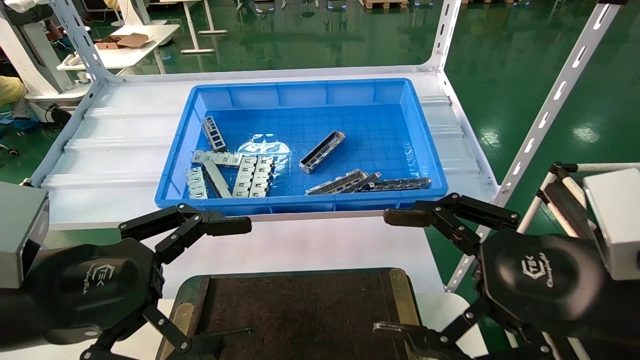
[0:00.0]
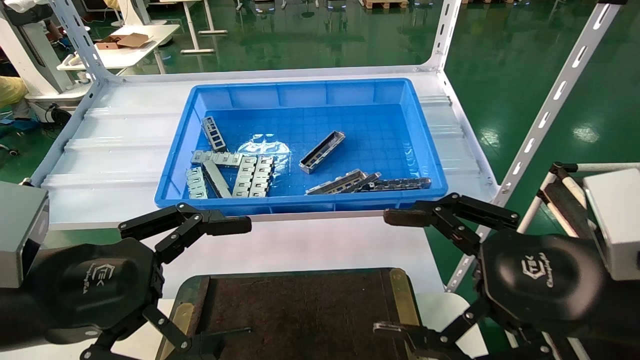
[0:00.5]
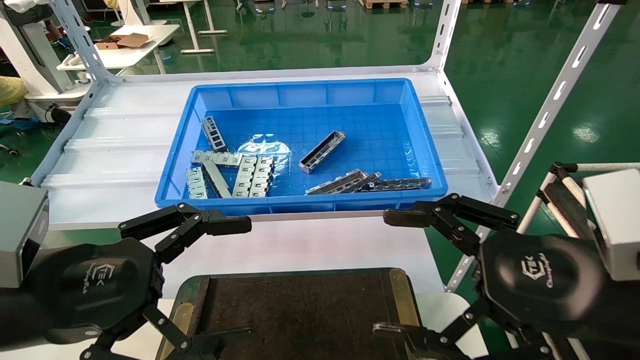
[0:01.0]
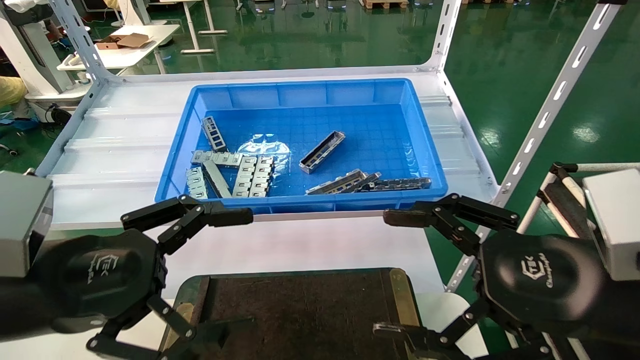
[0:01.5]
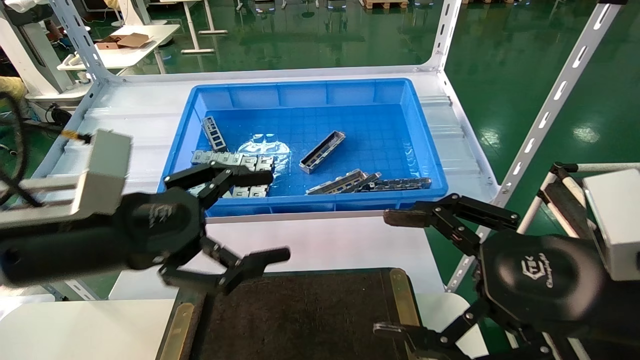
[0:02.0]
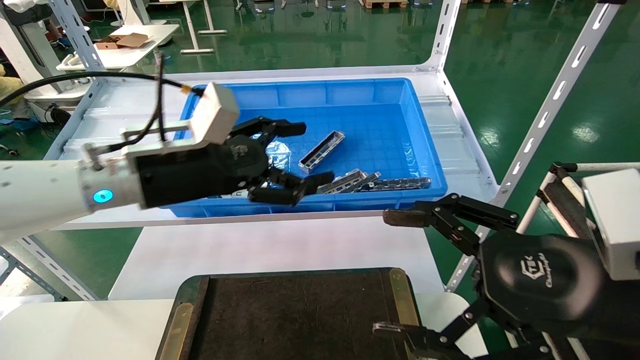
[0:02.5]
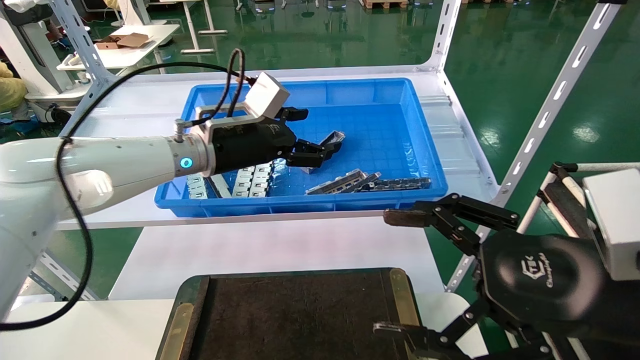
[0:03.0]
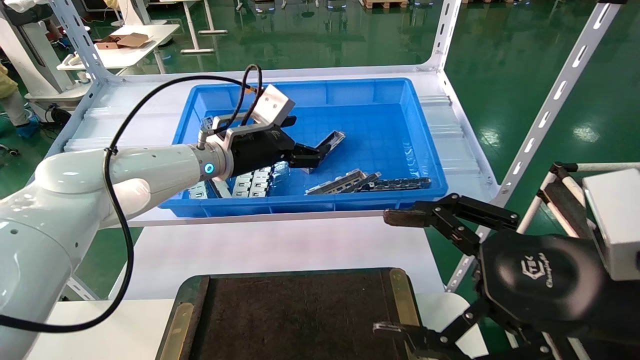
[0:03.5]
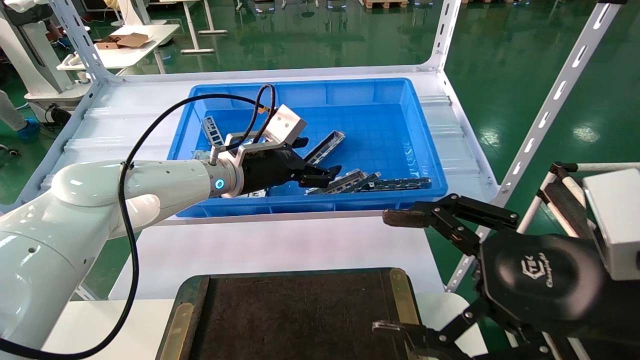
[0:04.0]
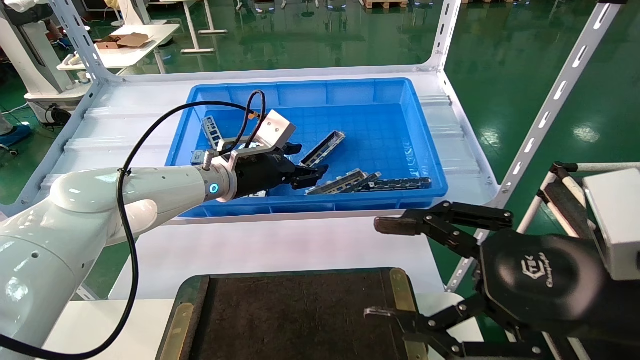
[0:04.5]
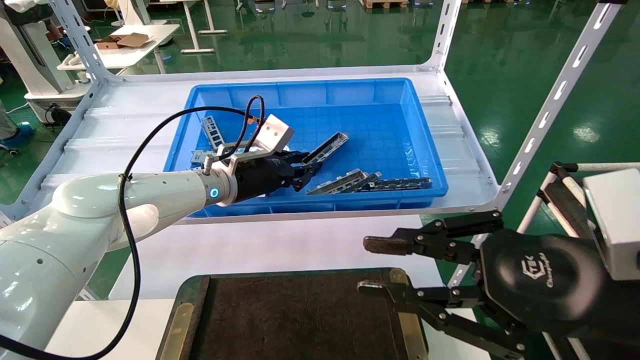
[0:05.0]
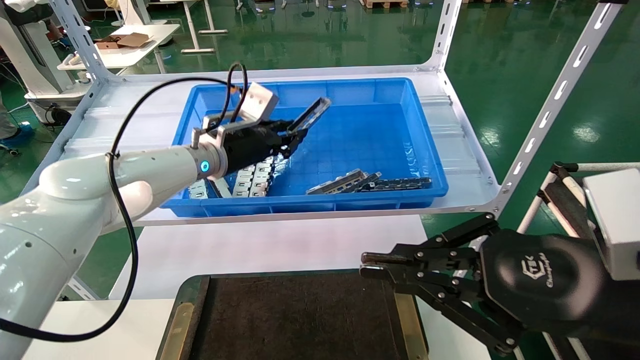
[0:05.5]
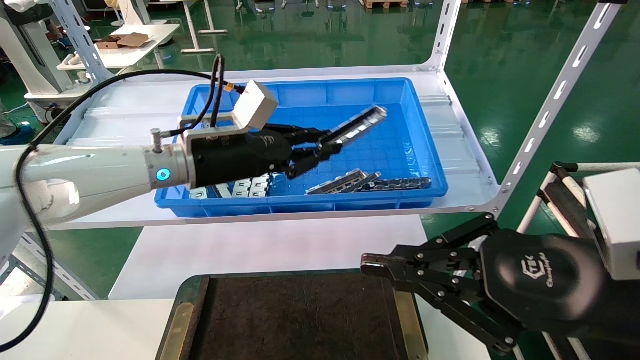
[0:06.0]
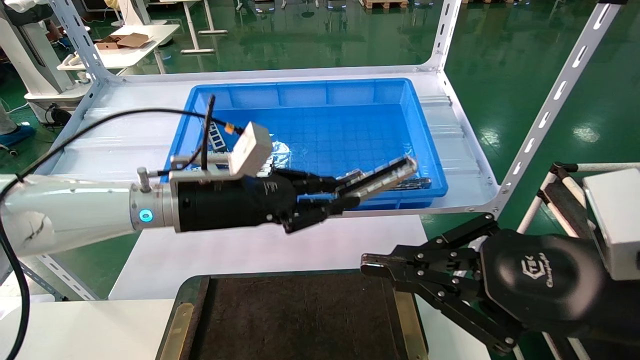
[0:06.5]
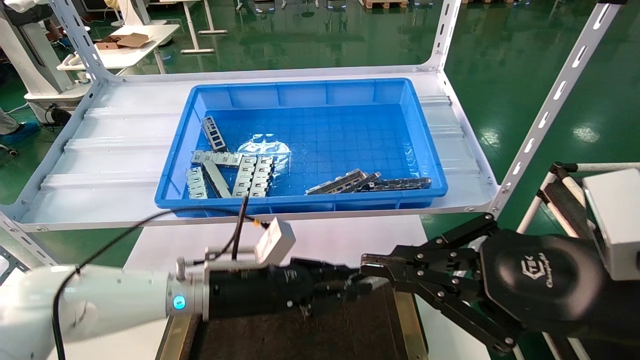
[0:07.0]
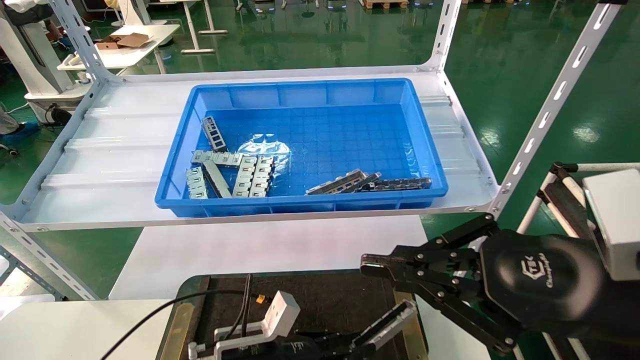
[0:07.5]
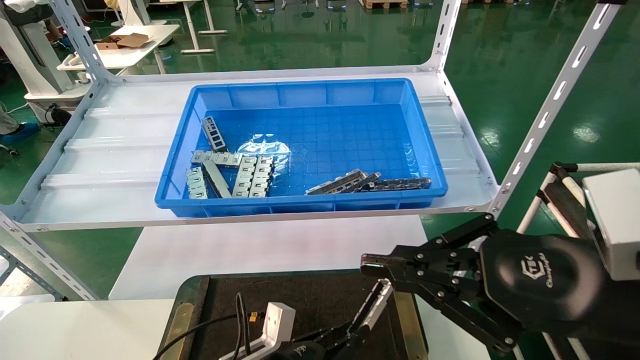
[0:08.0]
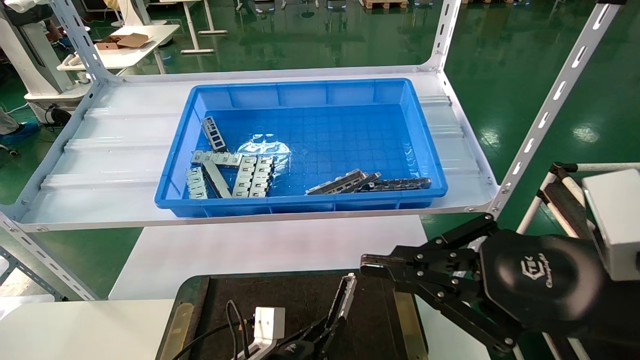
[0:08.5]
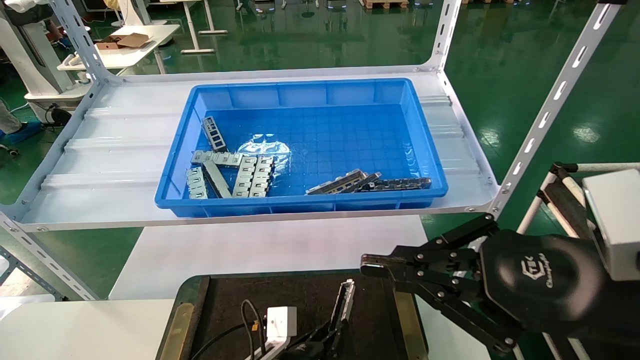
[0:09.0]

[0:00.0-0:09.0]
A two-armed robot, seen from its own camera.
Task of the whole recording: Grasp the part with one hand and place it on the black container.
Step, 0:01.5 to 0:05.5: Pick up the front USB bracket from the feeding area.
0:00.0 to 0:02.0: The left gripper moves forward, approximately 5 cm.
0:02.0 to 0:04.5: The left gripper goes about 25 cm forward and to the right.
0:04.5 to 0:07.0: The left gripper goes about 15 cm downward and backward, and closes its fingers, while the right gripper closes its fingers.
0:07.0 to 0:09.0: The left gripper moves downward and to the right, some 20 cm.

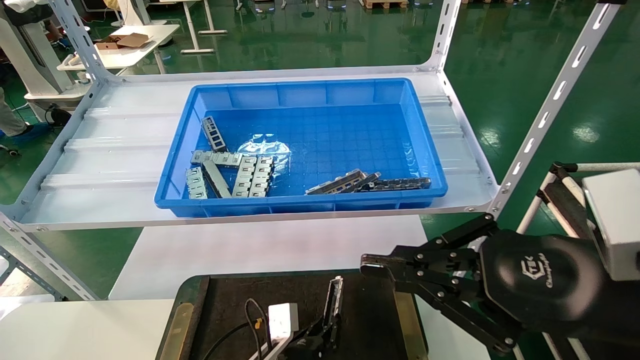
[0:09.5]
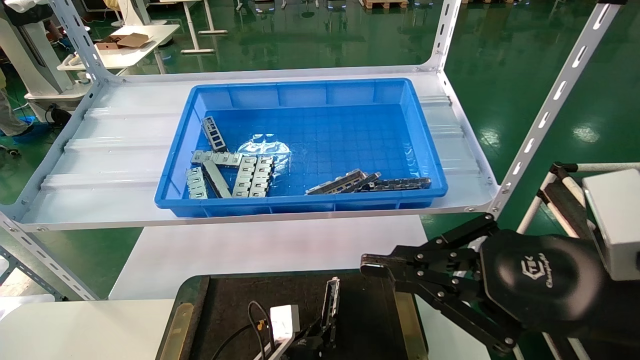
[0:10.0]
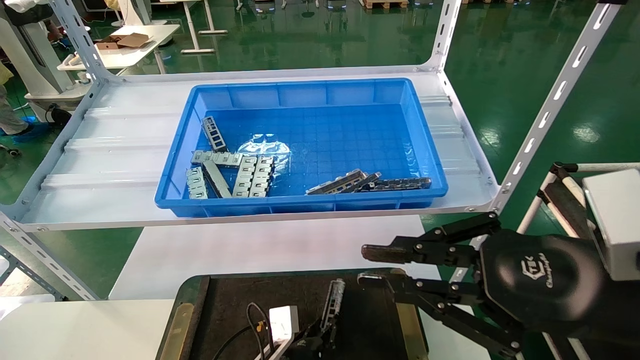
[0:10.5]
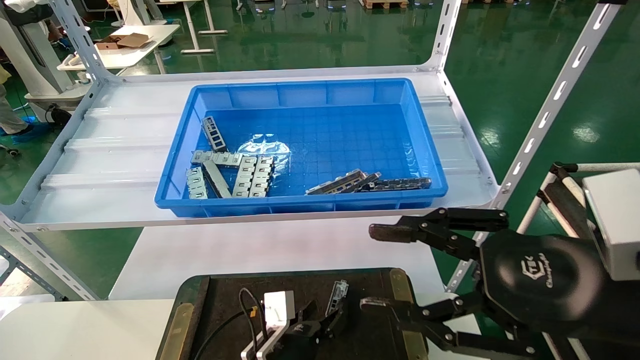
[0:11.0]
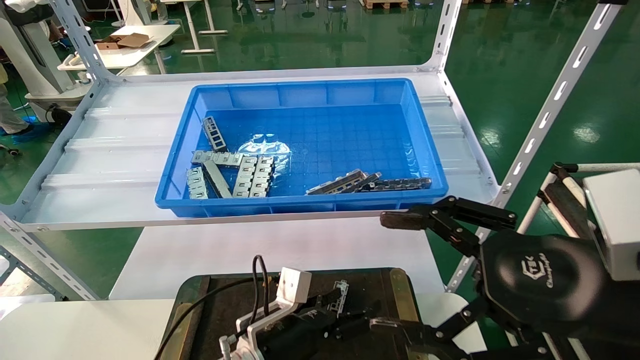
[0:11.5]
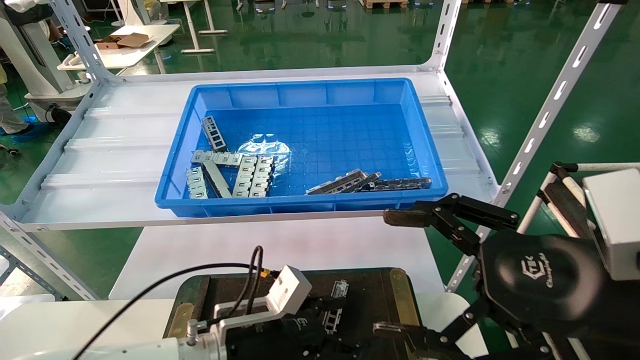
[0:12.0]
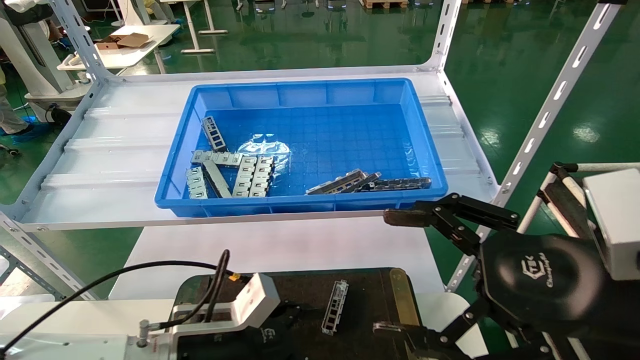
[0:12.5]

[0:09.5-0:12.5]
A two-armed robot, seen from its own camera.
Task of the whole recording: Grasp the part with one hand and place it on the black container.
0:09.5 to 0:11.0: The left gripper opens up. Meanwhile the right gripper opens up.
0:11.0 to 0:12.5: The right gripper opens. Meanwhile the left gripper travels upward, to the left and backward by some 15 cm, and opens up.

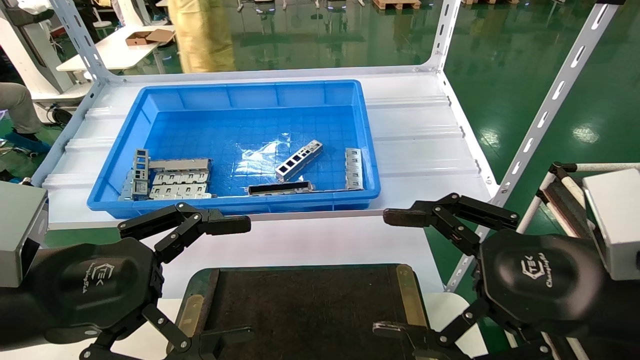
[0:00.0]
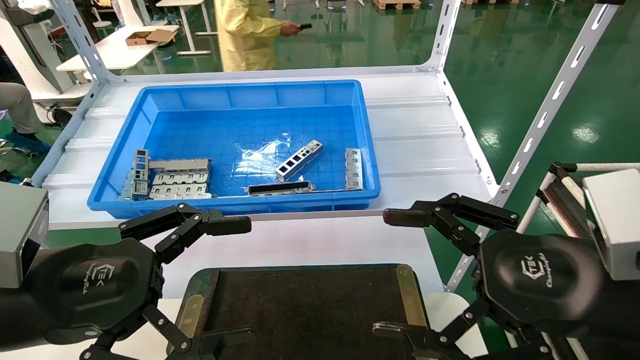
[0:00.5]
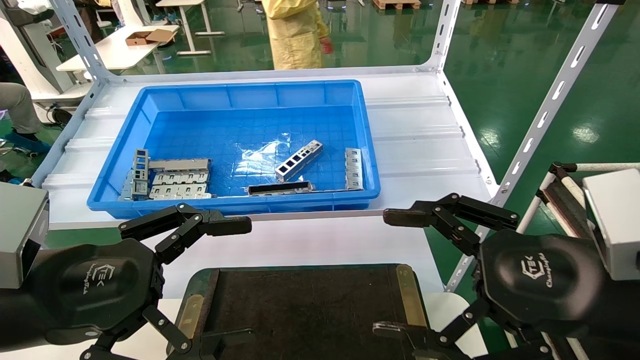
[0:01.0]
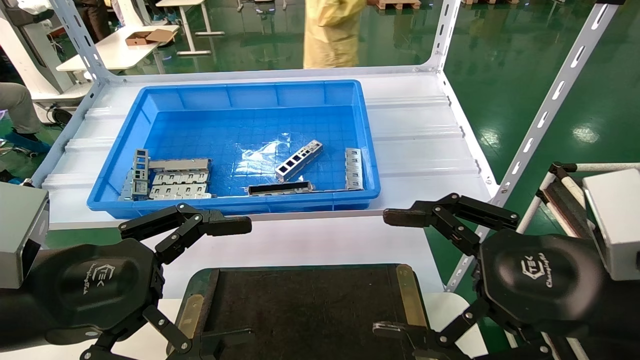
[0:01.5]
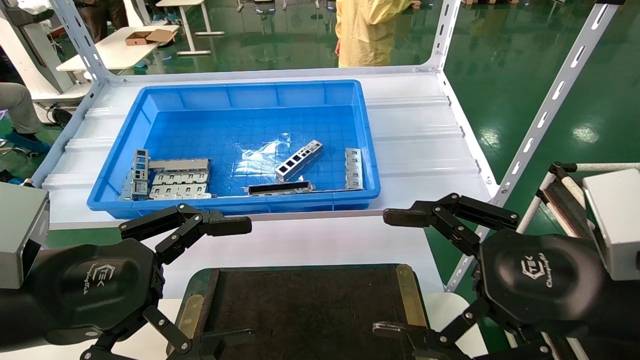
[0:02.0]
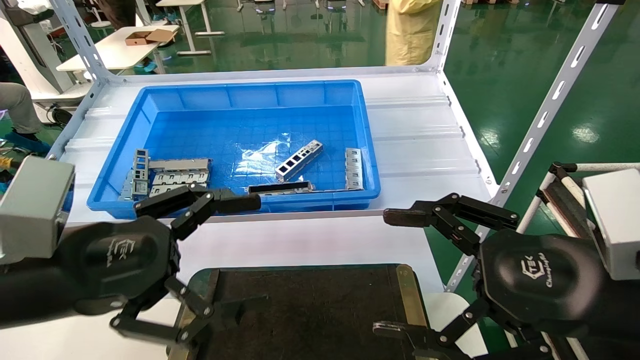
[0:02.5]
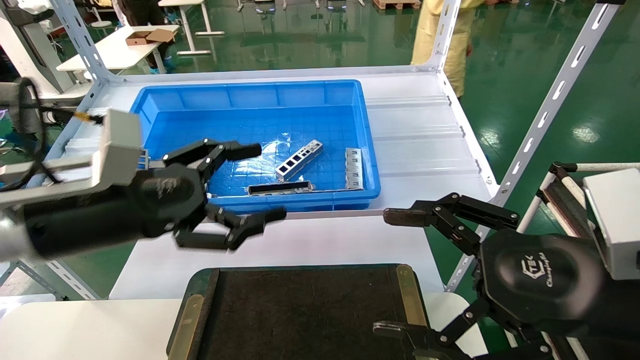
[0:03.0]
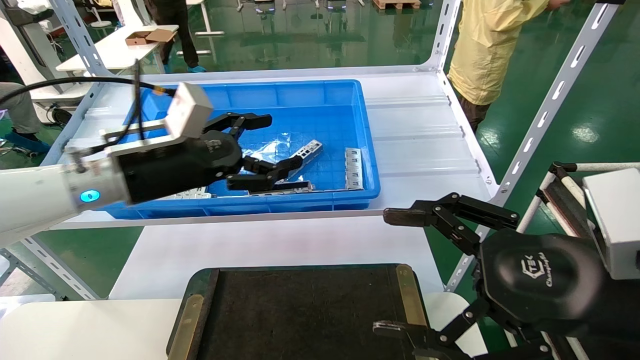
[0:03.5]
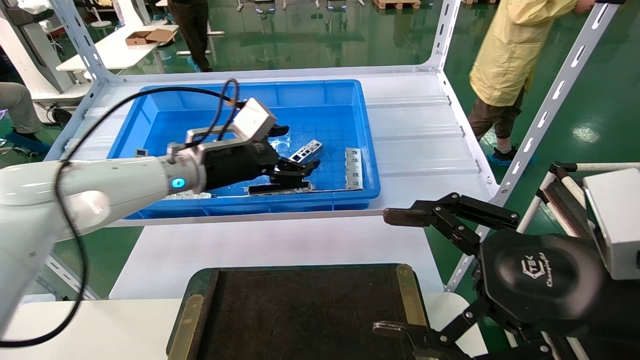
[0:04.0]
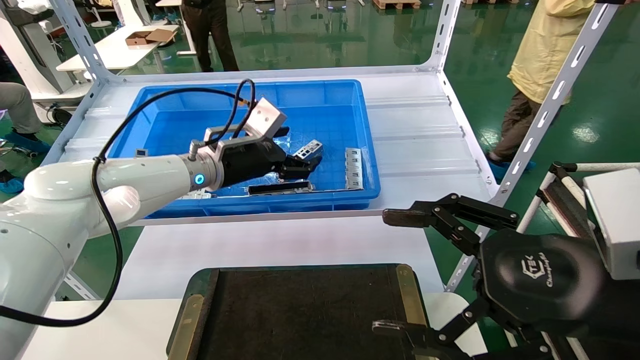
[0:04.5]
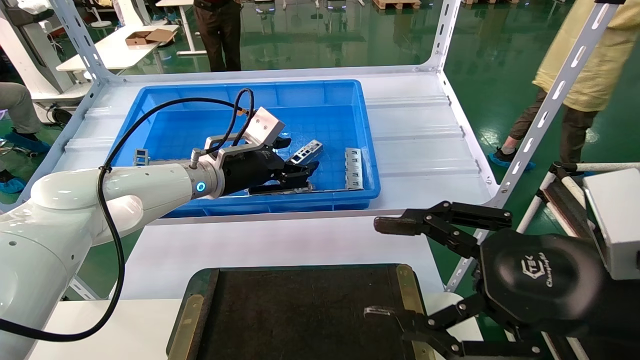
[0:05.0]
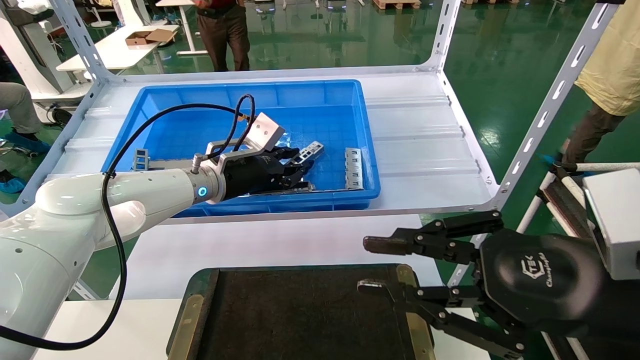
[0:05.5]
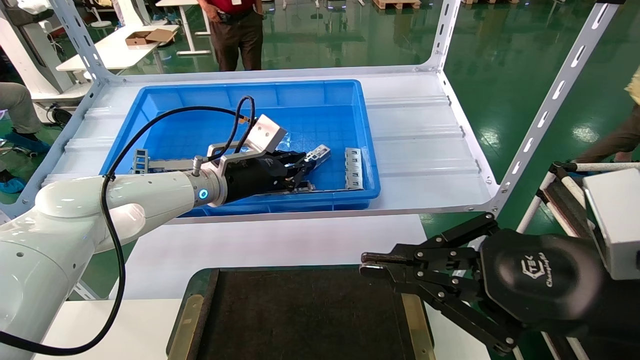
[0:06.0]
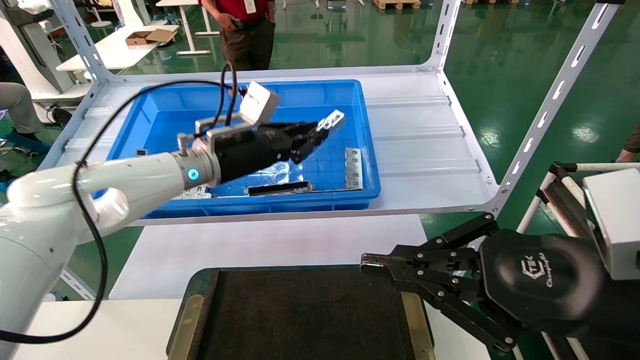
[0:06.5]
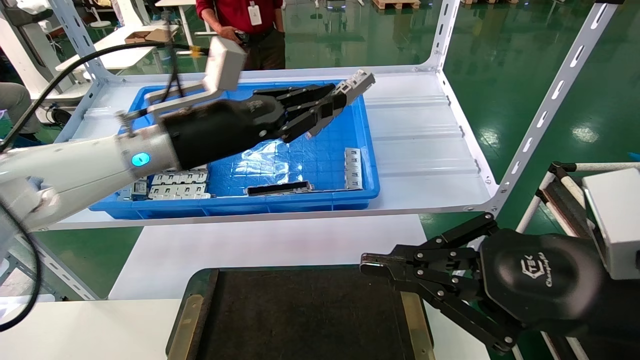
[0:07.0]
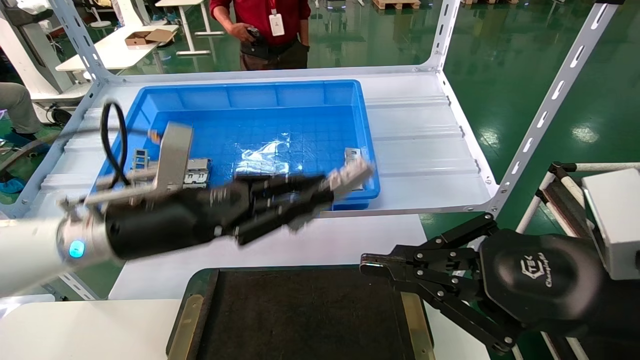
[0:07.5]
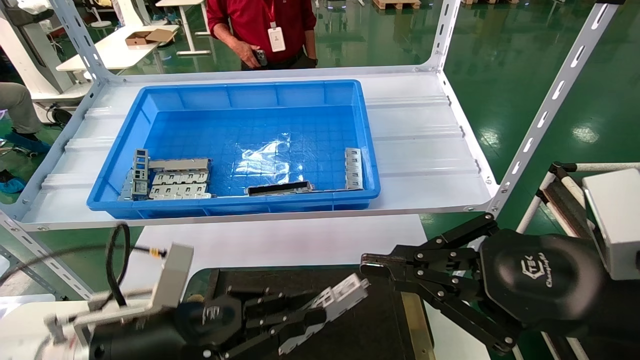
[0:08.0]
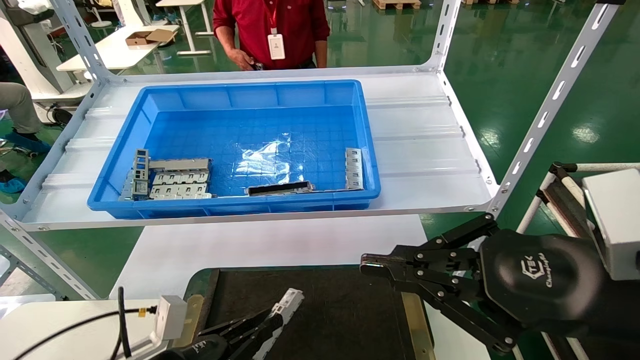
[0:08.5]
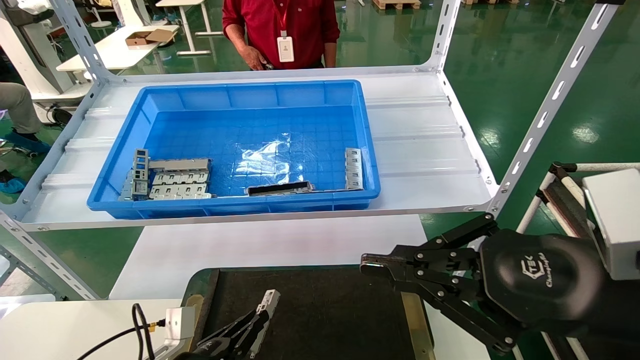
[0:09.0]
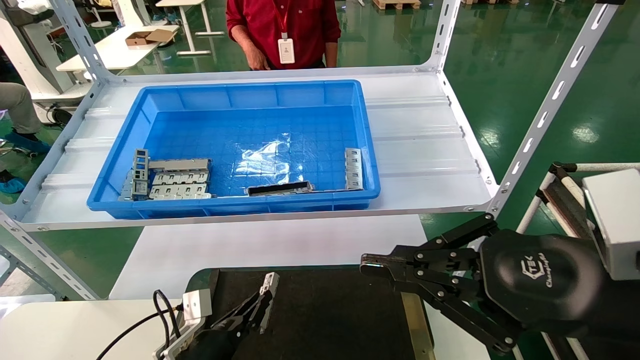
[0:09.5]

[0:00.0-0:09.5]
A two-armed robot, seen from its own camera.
Task of the whole recording: Grasp the part with one hand and place it on the black container.
Step, 0:02.5 to 0:06.0: Pick up the front USB bracket from the feeding area.
0:00.0 to 0:02.0: Both grippers stay put.
0:02.0 to 0:04.0: The left gripper moves forward, approximately 25 cm.
0:04.0 to 0:05.5: The left gripper closes, while the right gripper closes its fingers.
0:05.5 to 0:07.5: The right gripper closes; the left gripper heads backward, covering about 15 cm, and closes.
0:07.5 to 0:09.5: The left gripper travels downward by about 30 cm.
